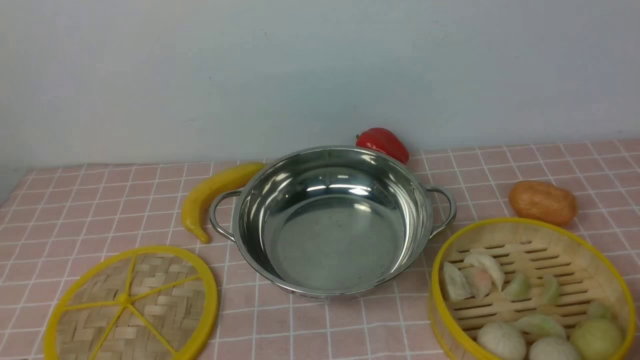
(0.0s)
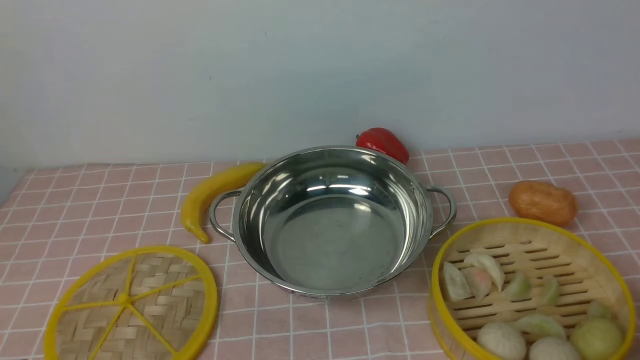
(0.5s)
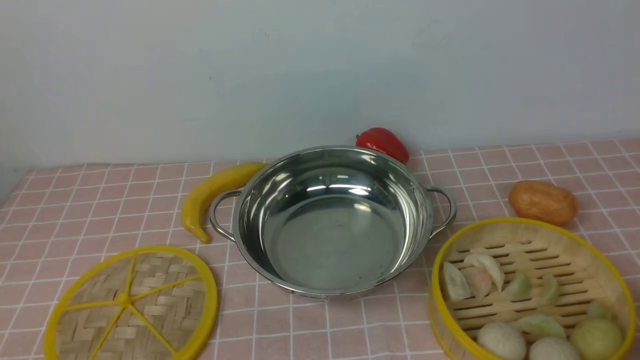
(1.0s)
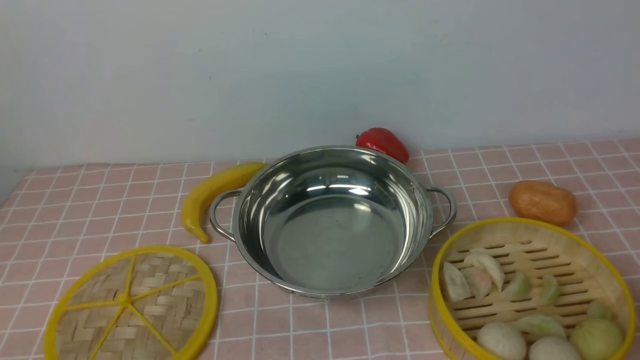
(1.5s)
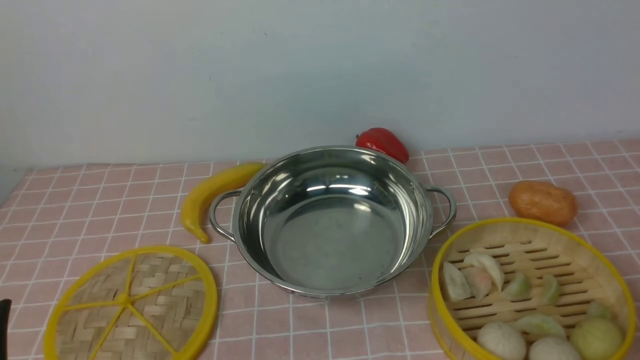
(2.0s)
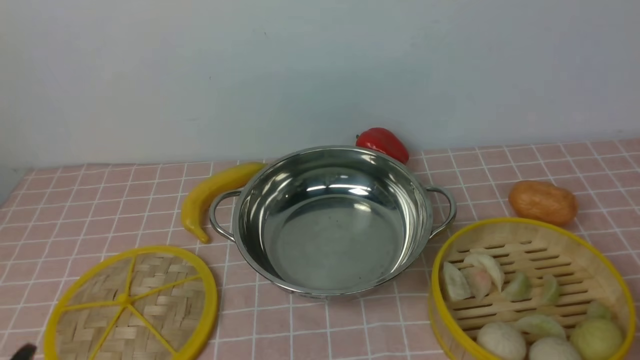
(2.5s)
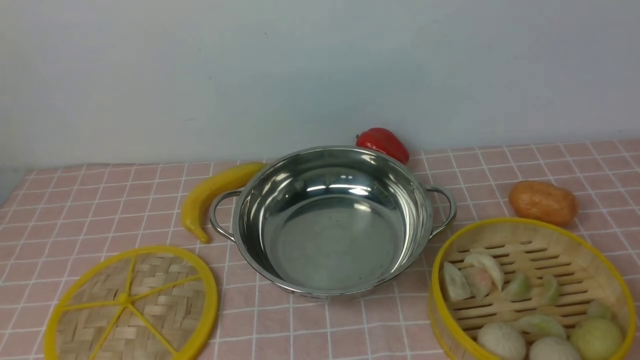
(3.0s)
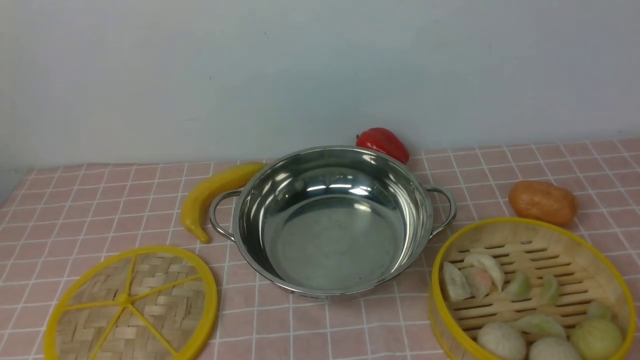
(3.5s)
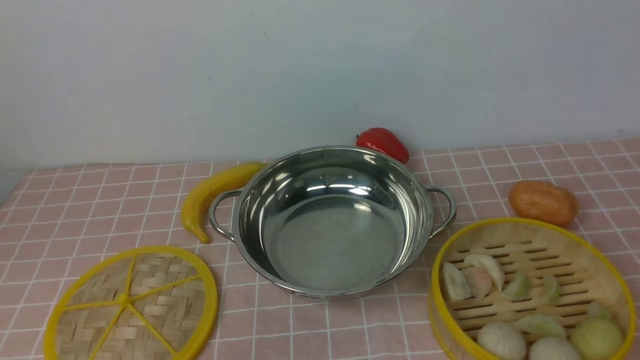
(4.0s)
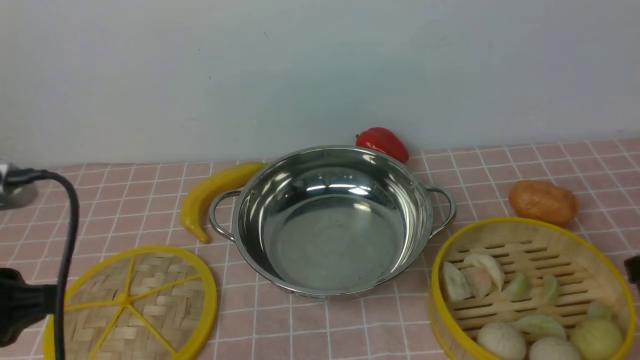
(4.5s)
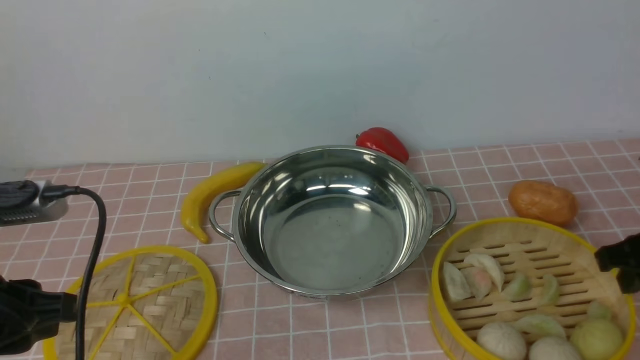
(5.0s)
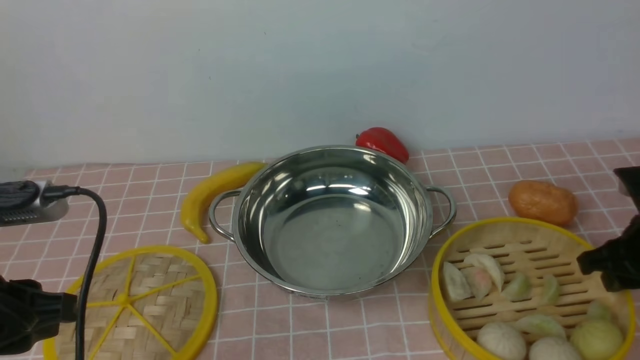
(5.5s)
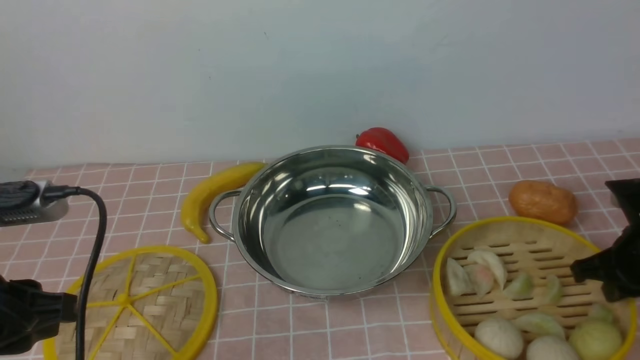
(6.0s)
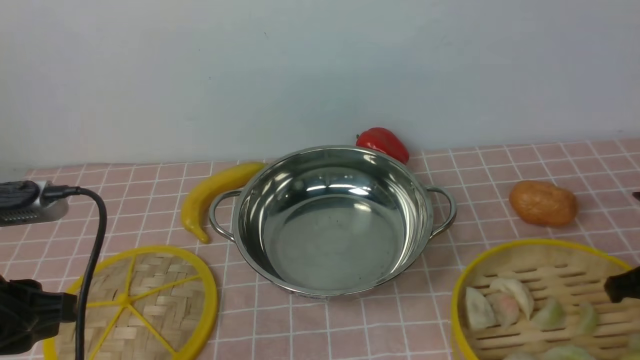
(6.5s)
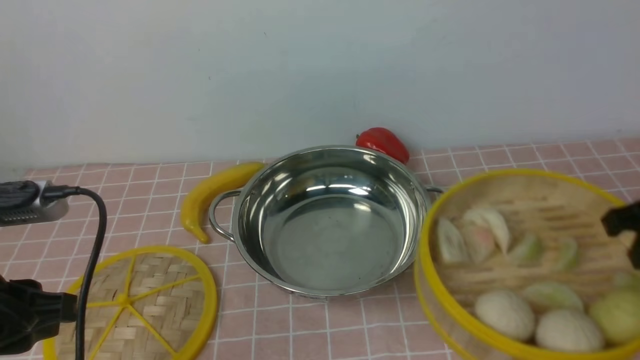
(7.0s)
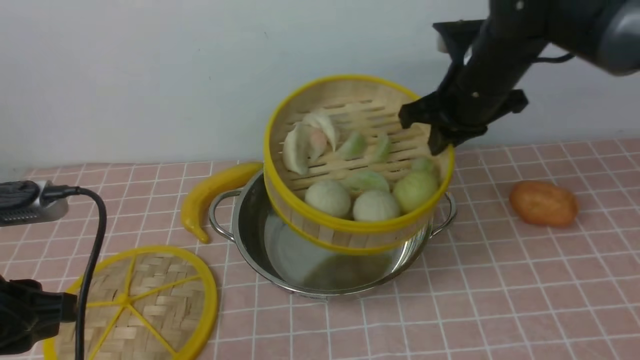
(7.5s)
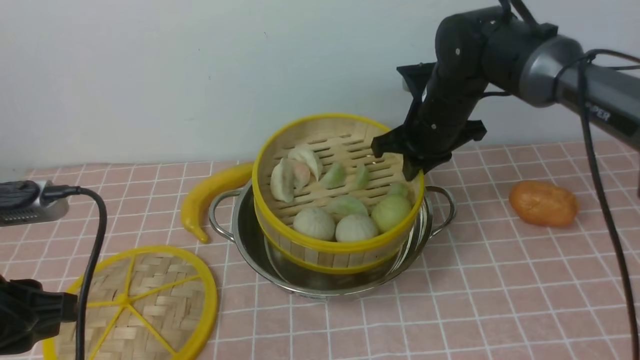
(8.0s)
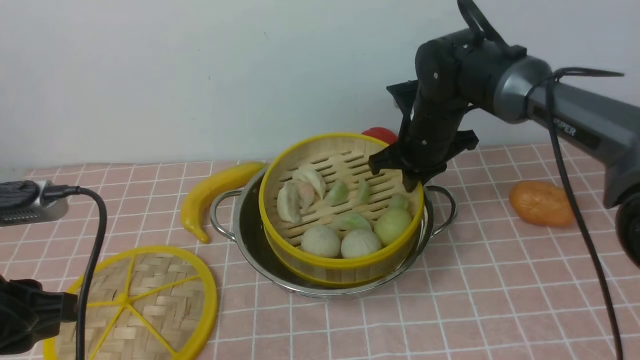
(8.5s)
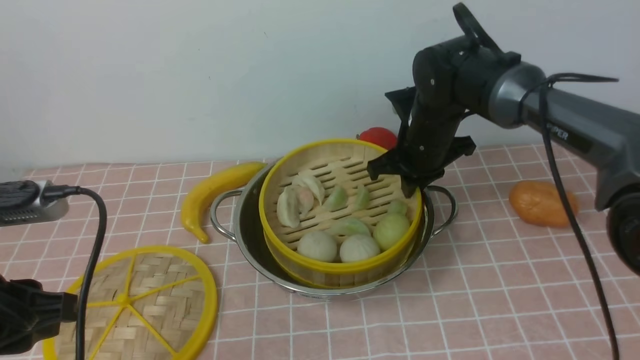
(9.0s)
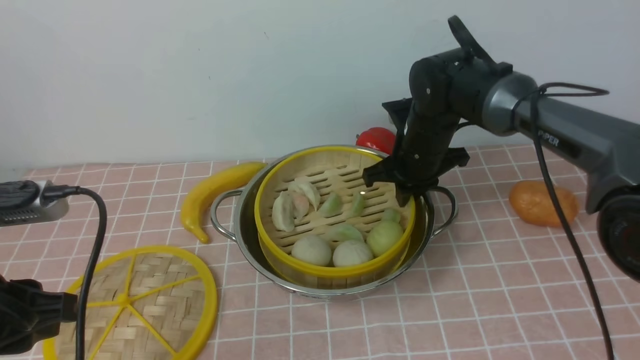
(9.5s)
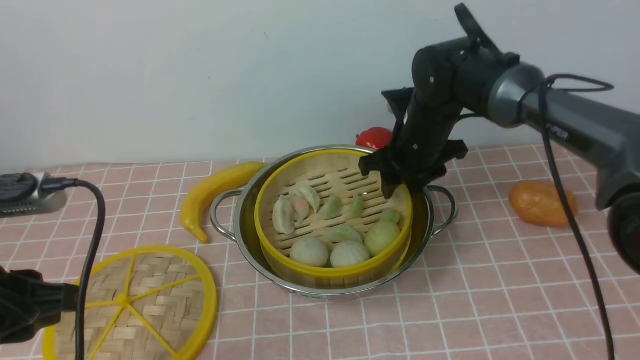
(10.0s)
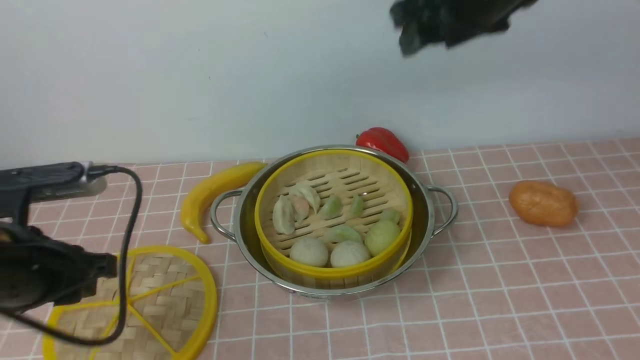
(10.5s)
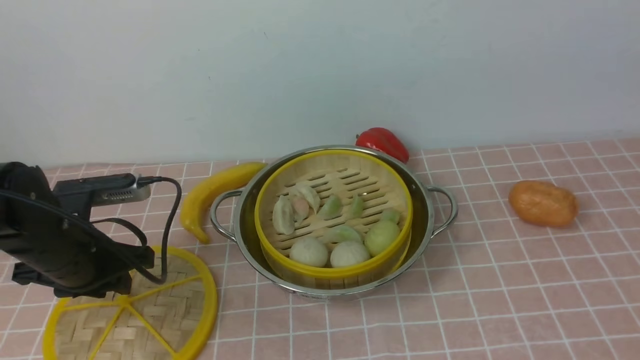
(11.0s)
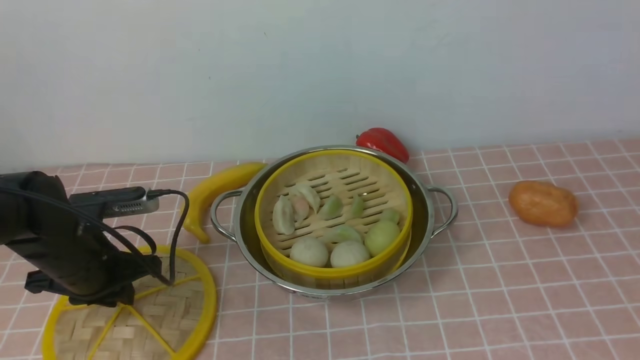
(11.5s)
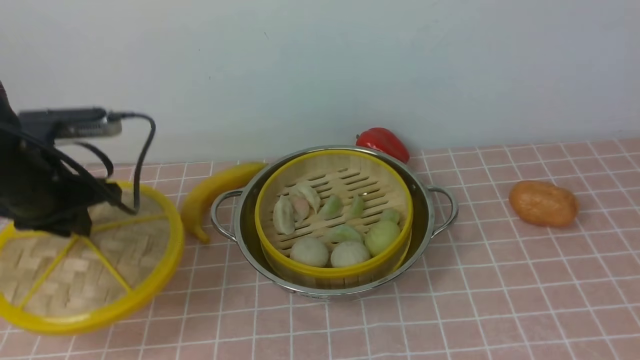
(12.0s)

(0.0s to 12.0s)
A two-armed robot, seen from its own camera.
Task of the whole recording: place the steamer in the pot on the pink tablecloth, and put the lid on the steamer.
Step, 0.0s - 6.0s: use the right arm to lift the steamer closest to it.
Step, 7.0s - 10.0s: use the right arm to put the steamer into the iron steamer pot in the middle.
Step, 10.5s - 11.5s: use the left arm to lift the lid of the steamer.
4.0s - 6.0s: The right gripper goes some 20 cm forward and downward, and closes. Meanwhile the left gripper travels downward and forward by some 10 cm.
6.0s - 8.0s: The right gripper heads to the left and forward, covering approximately 25 cm.
8.0s - 10.0s: The right gripper opens.
10.0s - 12.0s: The right gripper travels backward, upward and to the right by approximately 60 cm, while the left gripper shifts roughly 15 cm forward.

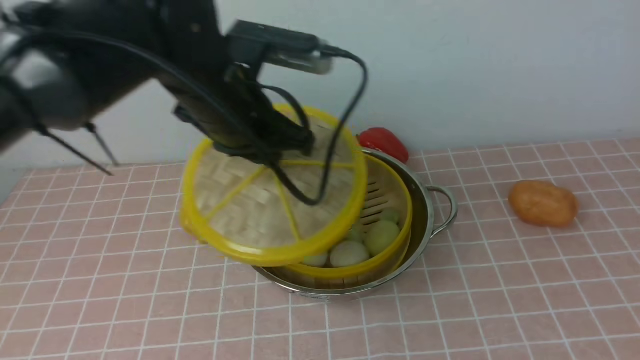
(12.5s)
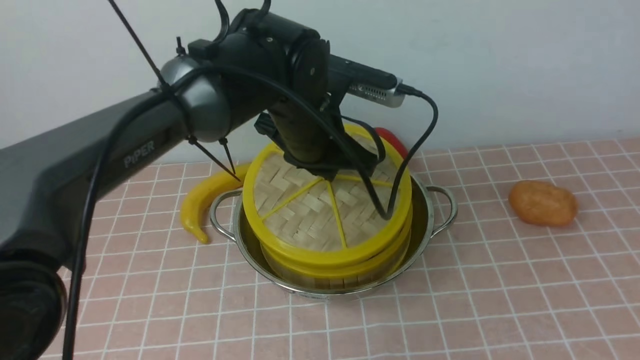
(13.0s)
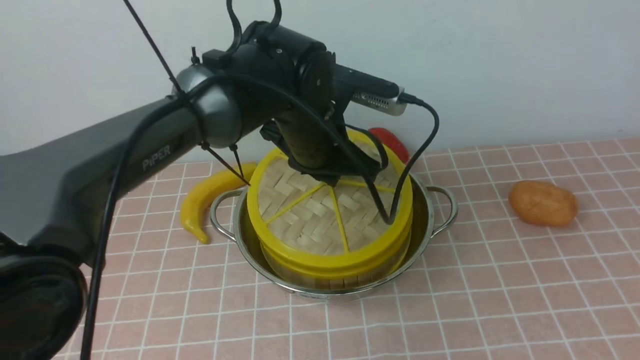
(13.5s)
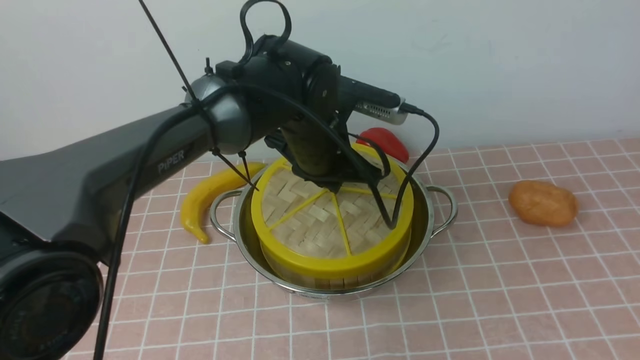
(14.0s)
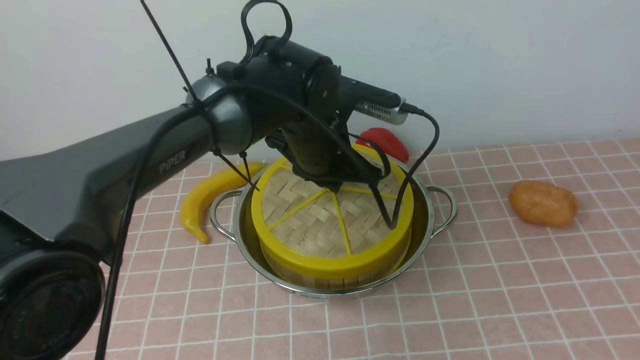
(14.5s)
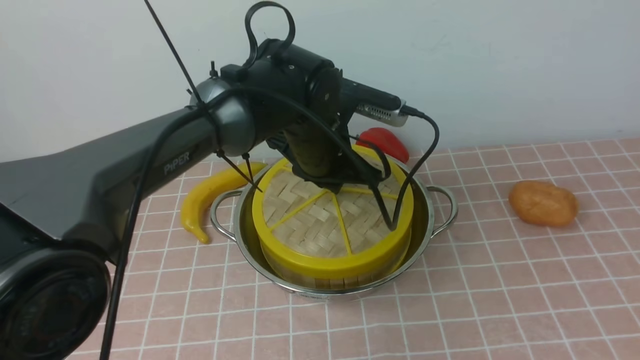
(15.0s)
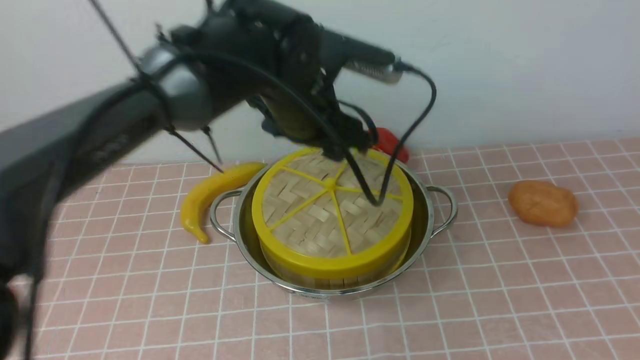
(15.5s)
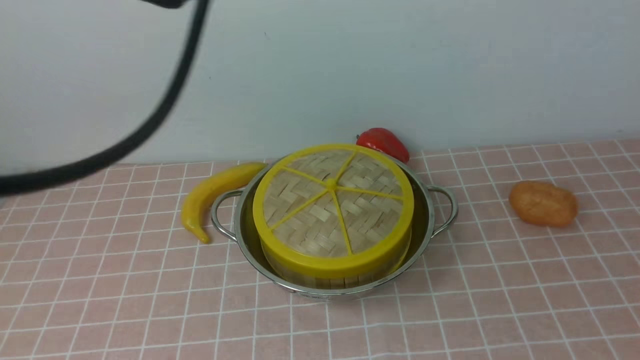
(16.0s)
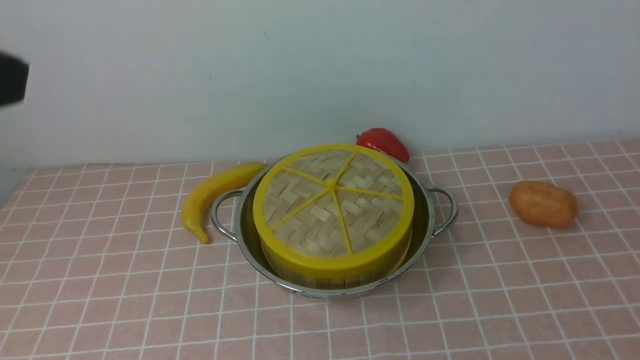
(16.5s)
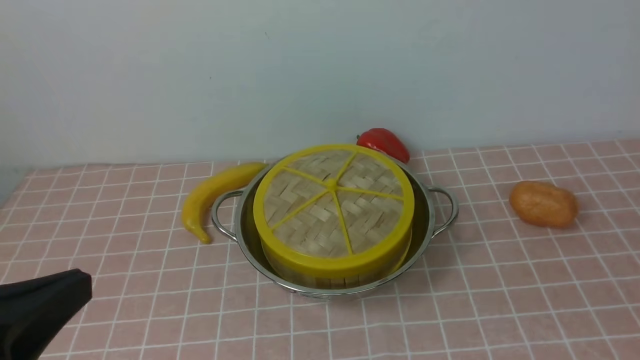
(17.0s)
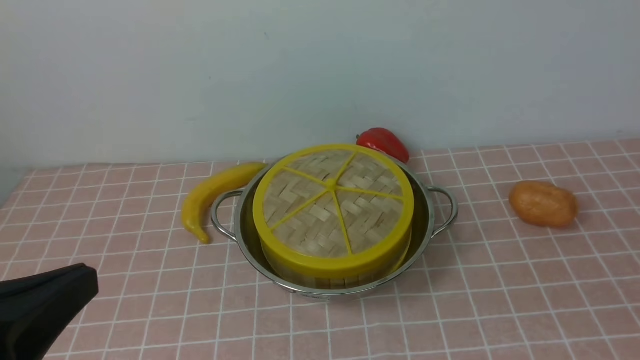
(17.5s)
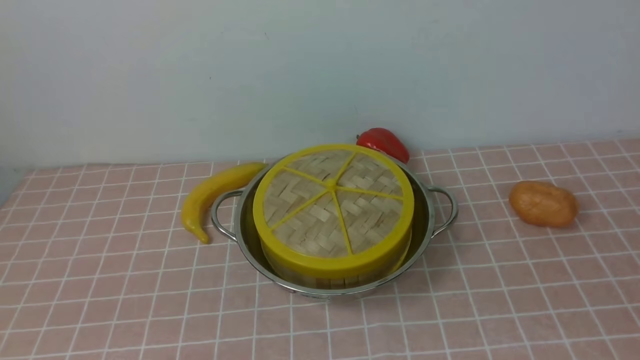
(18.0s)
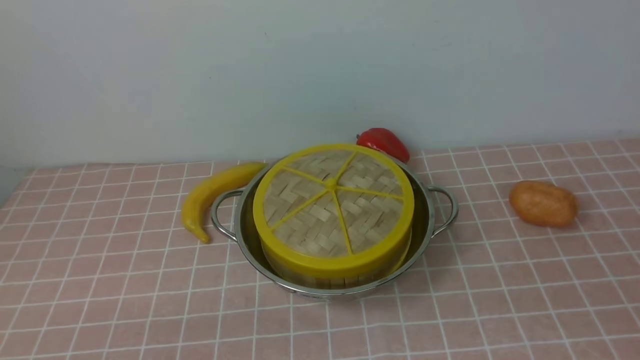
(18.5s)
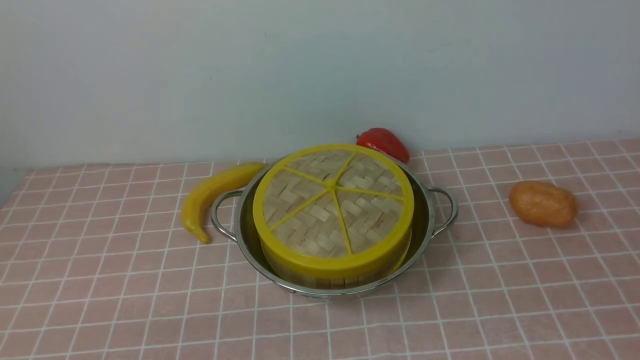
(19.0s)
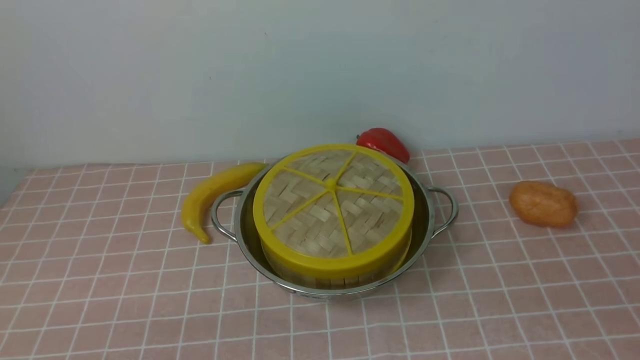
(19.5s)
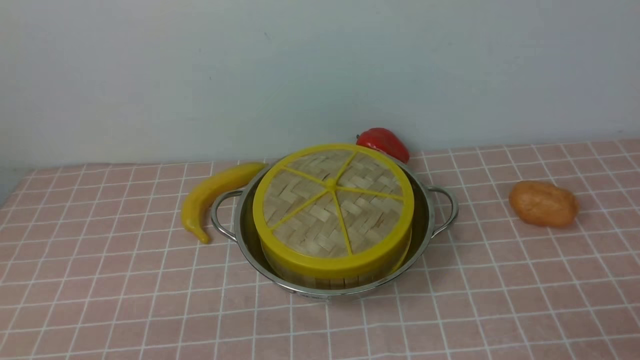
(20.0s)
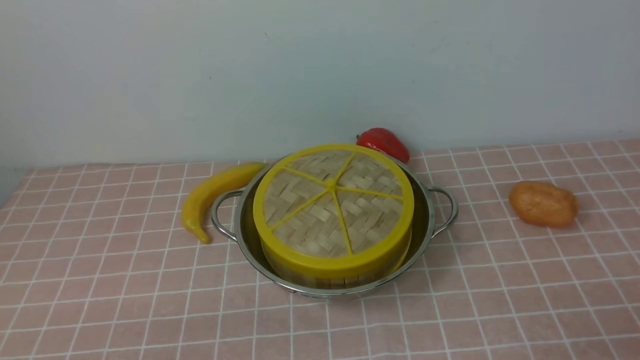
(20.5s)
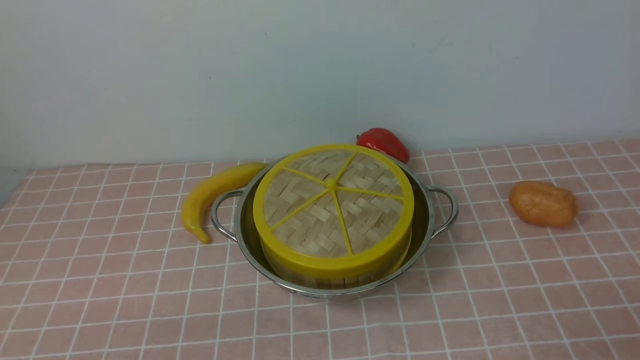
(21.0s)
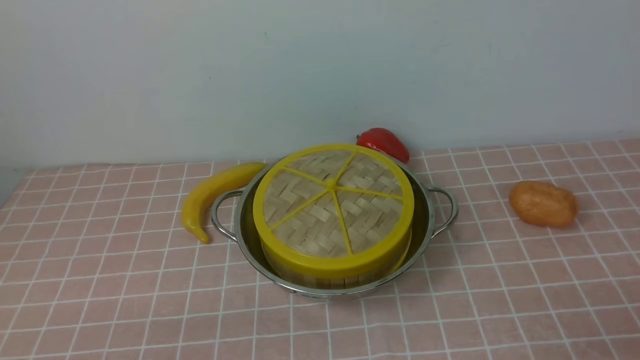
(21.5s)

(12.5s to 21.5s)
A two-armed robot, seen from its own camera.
Task of the whole recording: place the steamer in the pot on the pink tablecloth, and put the lid on the steamer.
Step, 12.5s - 15.0s: use the left arm to place the steamer lid on the steamer.
12.5s - 14.5s: The left gripper heads downward and to the right, covering about 10 cm.
14.5s - 17.0s: The left gripper is displaced backward and to the left by about 40 cm, and opens, then closes again. Meanwhile the right gripper shifts approximately 20 cm downward, and closes up.
17.0s - 19.5s: The left gripper heads downward, covering some 15 cm.
